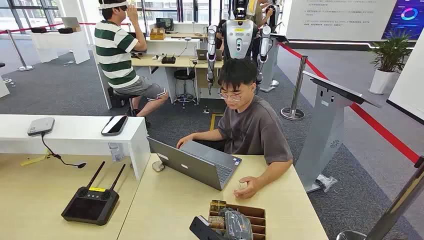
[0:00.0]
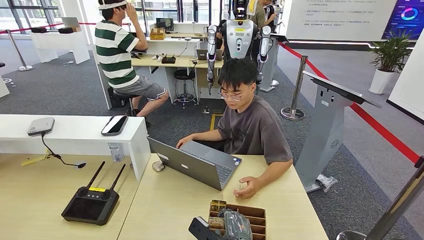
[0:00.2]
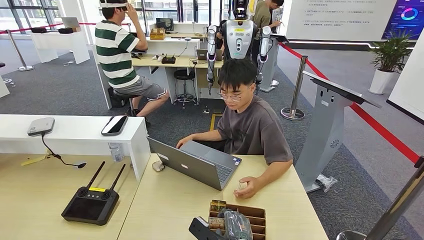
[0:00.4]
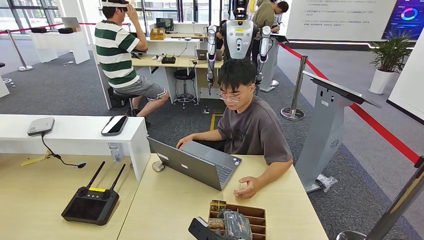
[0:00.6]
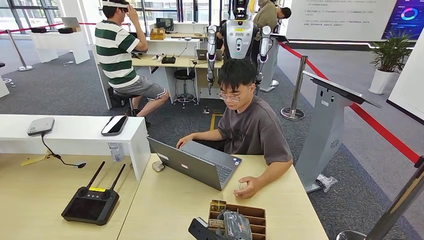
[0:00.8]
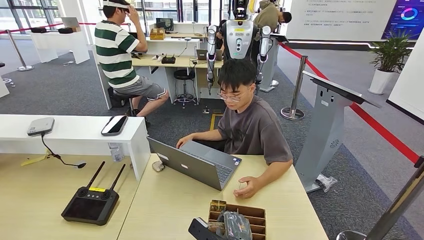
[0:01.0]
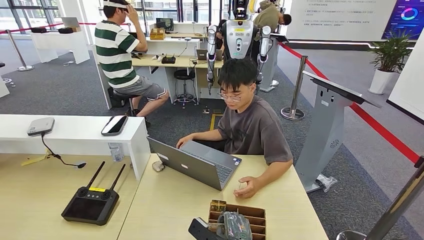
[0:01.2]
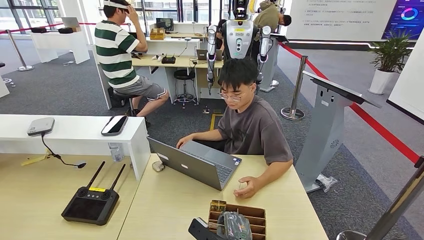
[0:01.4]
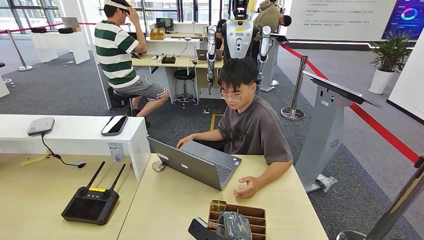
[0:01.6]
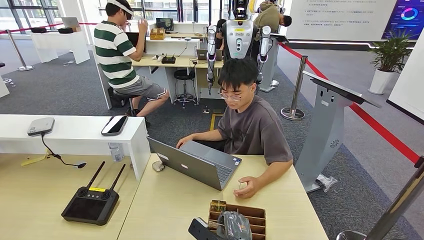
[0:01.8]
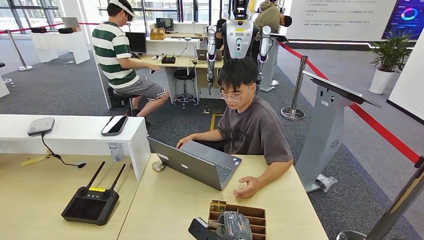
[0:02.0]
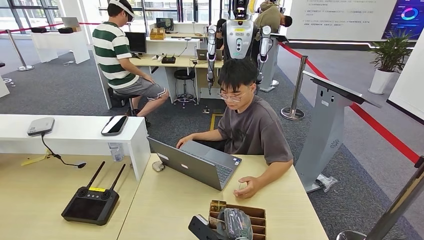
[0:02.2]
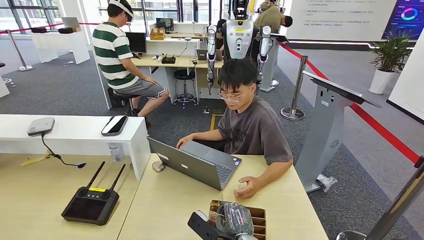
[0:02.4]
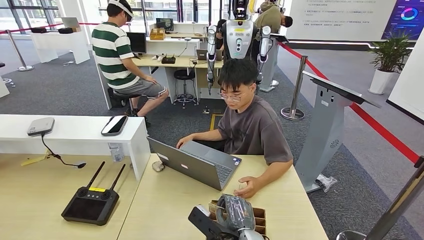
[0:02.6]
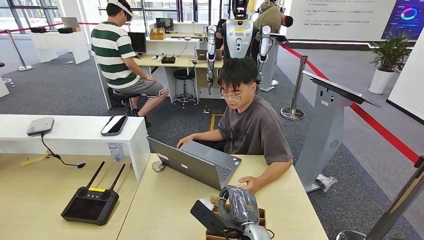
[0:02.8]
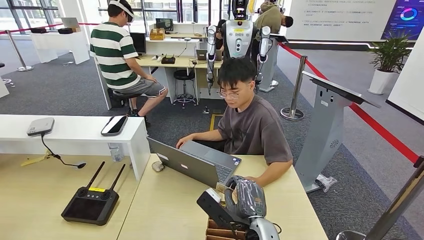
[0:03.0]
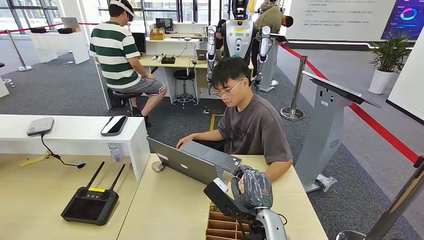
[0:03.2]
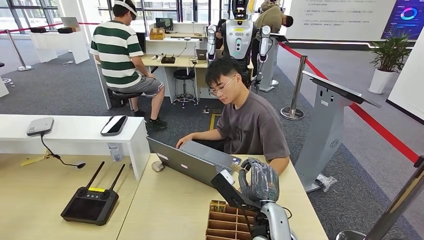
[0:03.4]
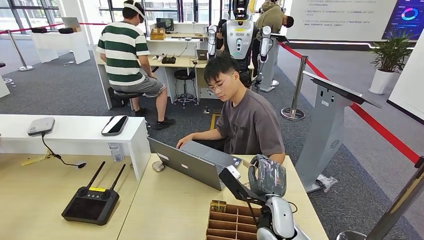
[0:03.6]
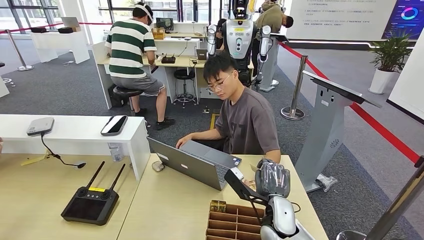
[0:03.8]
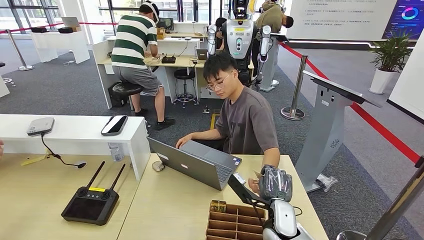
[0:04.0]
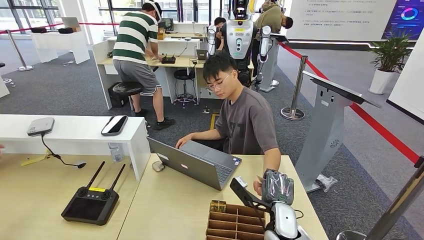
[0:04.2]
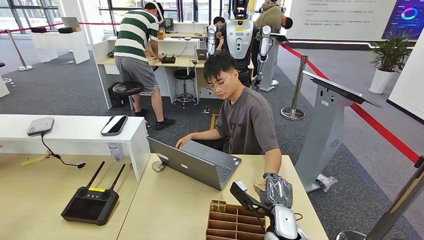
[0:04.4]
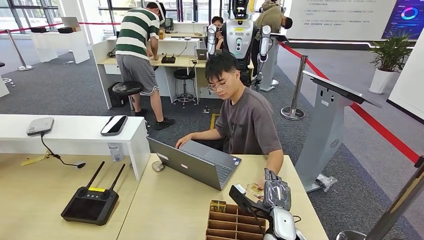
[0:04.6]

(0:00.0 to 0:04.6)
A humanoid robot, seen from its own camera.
Step, 0:03.6 - 0:04.6: Hand the room card to the target.
0:01.6 - 0:03.0: The right hand shifts about 10 cm upward.
0:03.0 - 0:04.6: The right hand shifts roughly 10 cm to the right, forward and downward.
